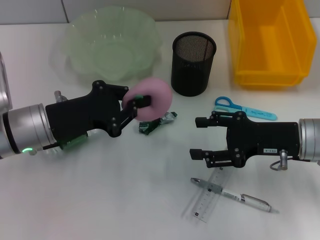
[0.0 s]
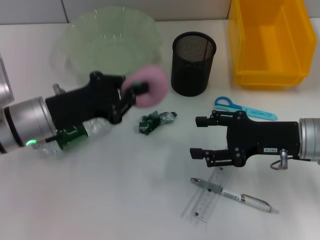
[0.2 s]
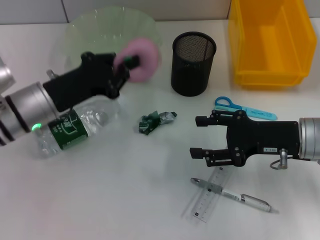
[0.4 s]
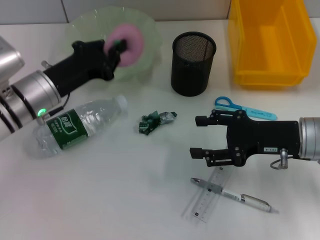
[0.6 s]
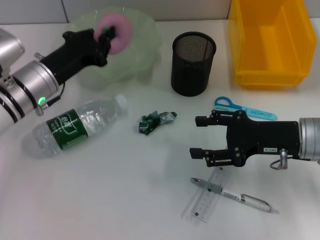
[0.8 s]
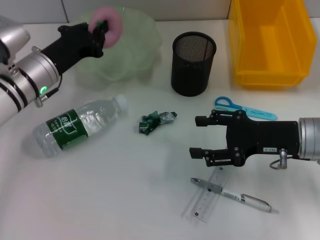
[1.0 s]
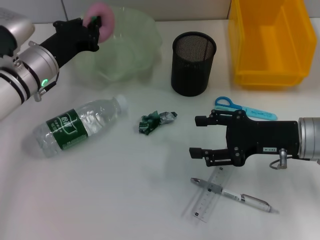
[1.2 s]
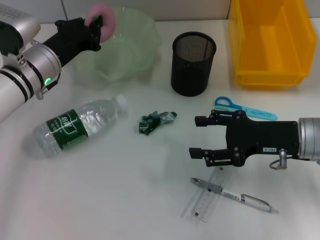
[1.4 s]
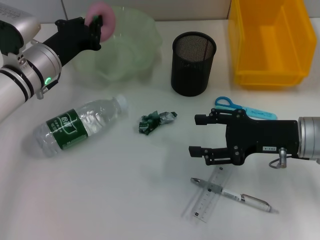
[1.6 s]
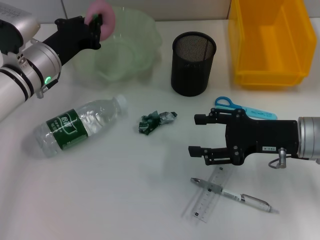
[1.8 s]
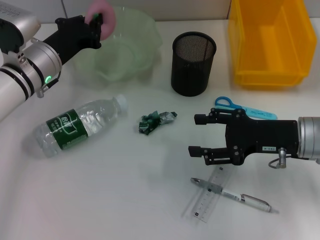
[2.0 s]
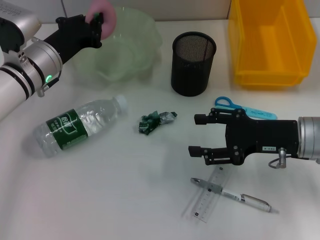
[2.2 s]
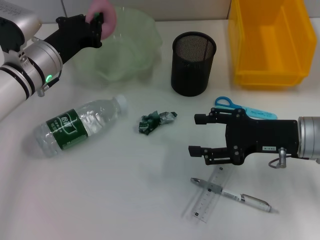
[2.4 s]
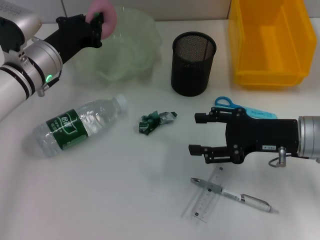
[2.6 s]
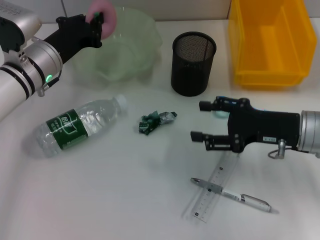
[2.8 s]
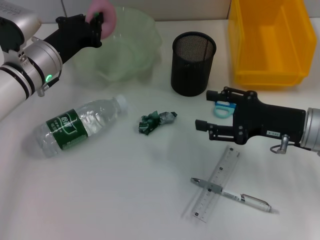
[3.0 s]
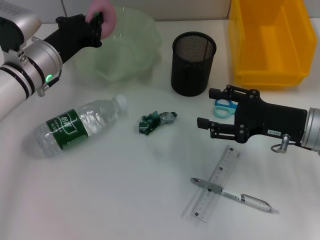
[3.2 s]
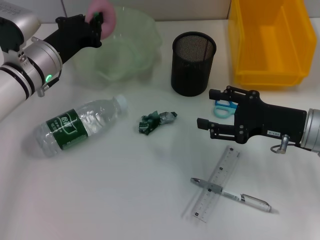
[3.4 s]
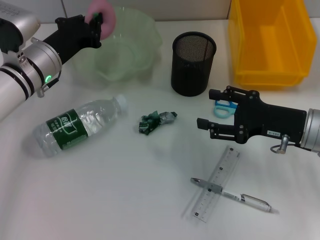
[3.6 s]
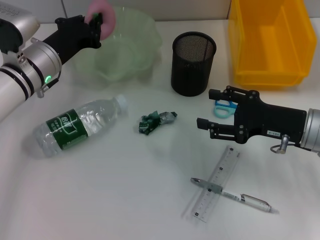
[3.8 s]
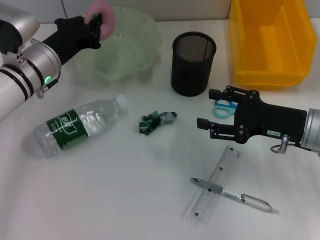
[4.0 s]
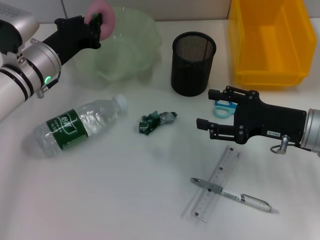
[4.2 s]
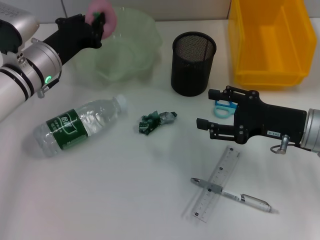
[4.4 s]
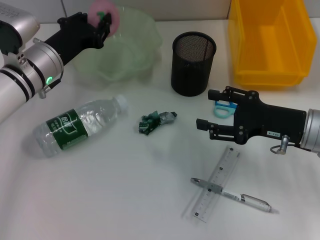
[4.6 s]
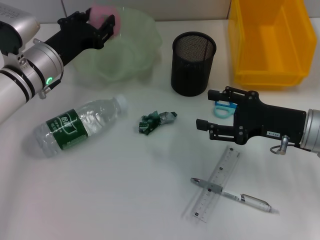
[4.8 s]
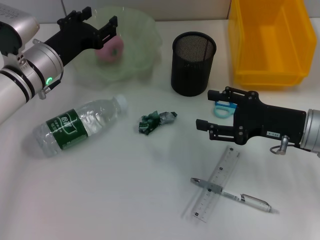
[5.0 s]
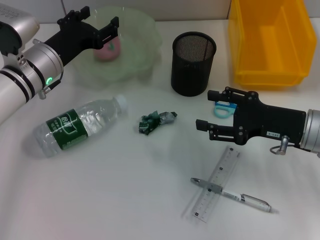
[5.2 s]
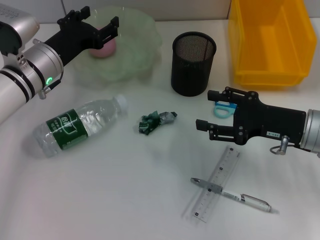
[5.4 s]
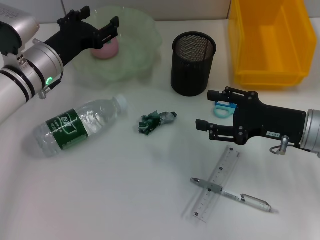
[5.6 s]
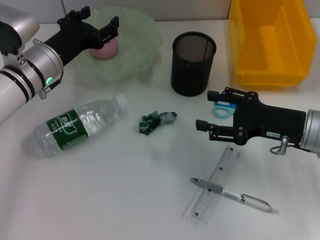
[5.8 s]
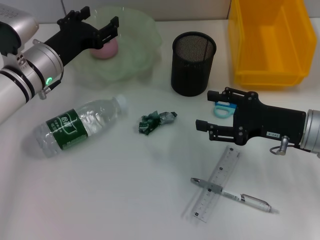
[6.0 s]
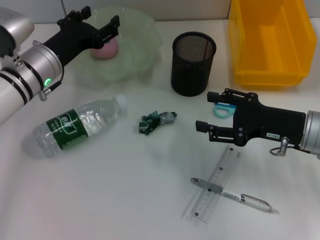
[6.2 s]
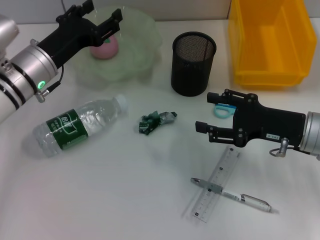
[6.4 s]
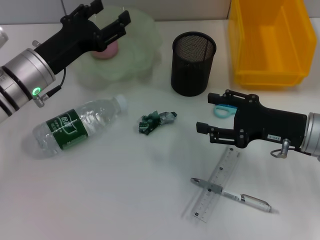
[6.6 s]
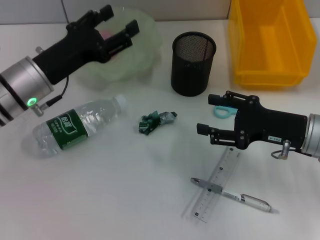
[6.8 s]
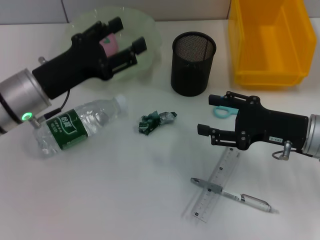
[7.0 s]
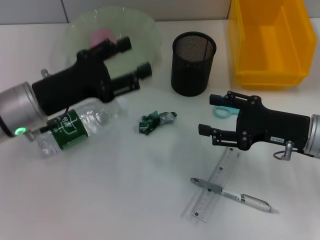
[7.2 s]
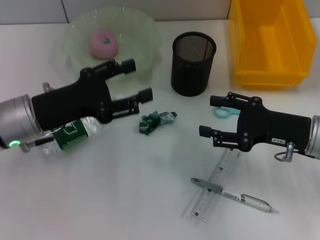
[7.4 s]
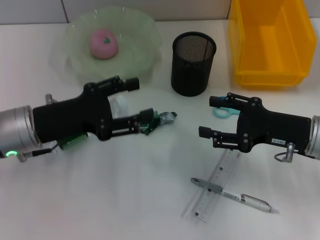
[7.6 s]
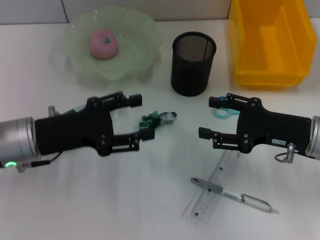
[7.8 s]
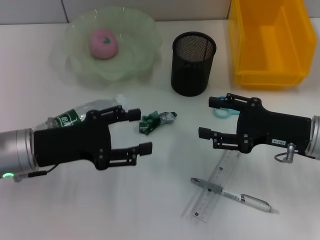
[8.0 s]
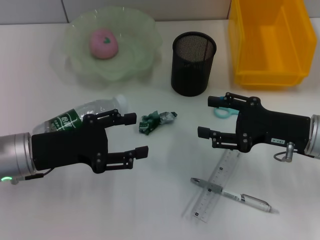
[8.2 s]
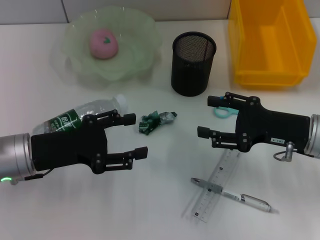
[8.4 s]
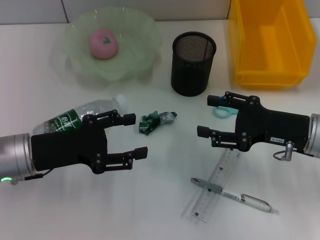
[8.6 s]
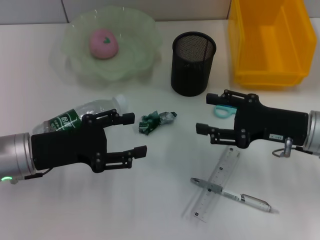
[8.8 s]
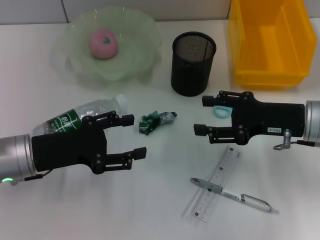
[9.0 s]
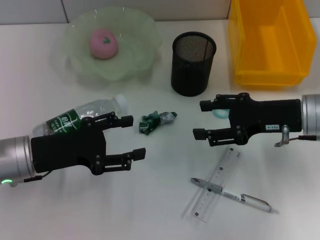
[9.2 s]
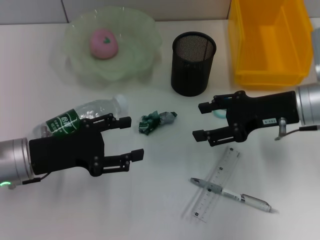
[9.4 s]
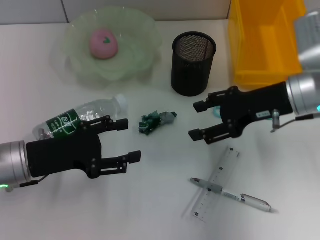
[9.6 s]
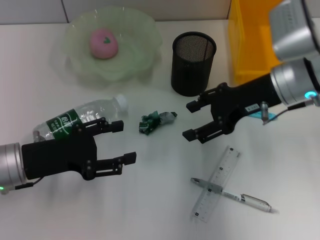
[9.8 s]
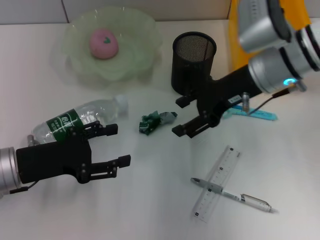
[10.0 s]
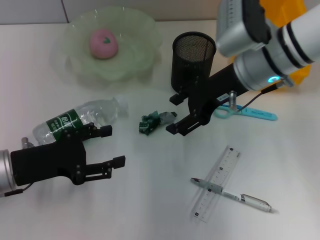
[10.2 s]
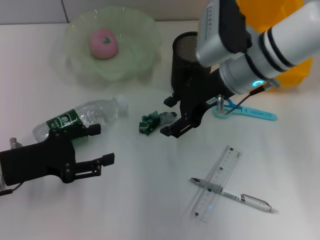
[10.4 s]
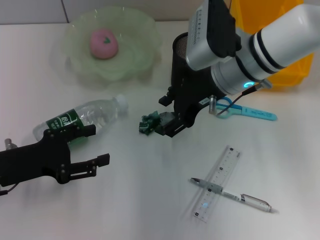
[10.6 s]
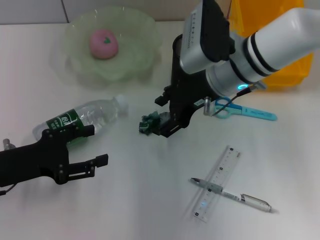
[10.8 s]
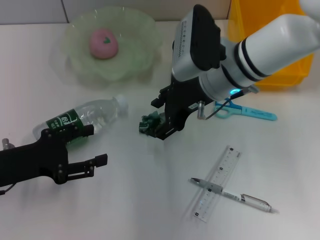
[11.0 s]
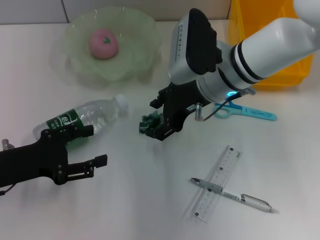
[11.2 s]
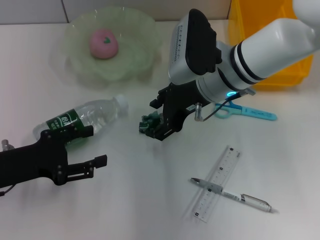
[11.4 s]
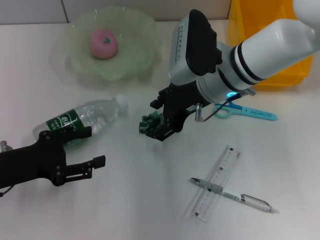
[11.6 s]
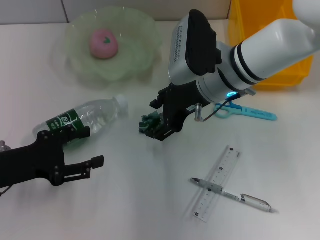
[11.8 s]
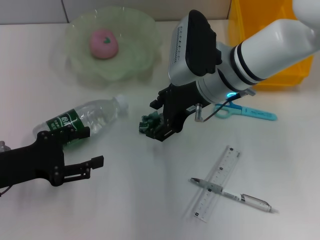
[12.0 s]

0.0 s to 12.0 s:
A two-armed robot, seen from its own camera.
Step, 0.0 to 5.2 s: Place the peach into the fruit bowl with the left hand.
0.0 to 1.6 s: The left gripper heads forward, covering some 10 cm.
1.6 to 3.0 s: The grippers stay close to where they were, moving slightly.
3.0 to 4.4 s: Both grippers stay put.
4.4 to 6.0 s: The left gripper opens up.
6.0 to 7.6 s: The left gripper travels backward by roughly 10 cm.
7.6 to 9.0 s: There are only small adjustments of the grippers.
9.0 to 10.4 s: The right gripper moves to the left, forward and upward, approximately 15 cm.
10.4 to 12.0 s: The grippers stay close to where they were, moving slightly.

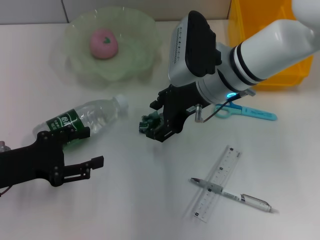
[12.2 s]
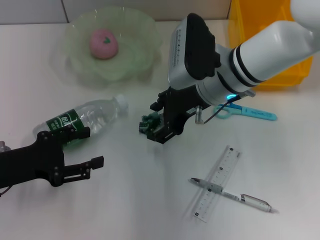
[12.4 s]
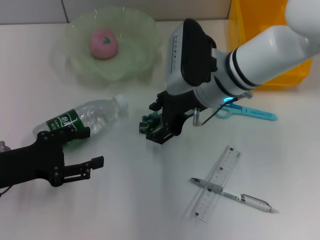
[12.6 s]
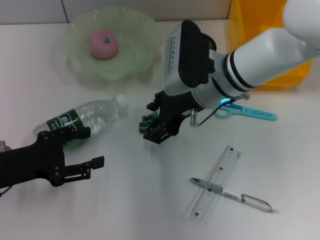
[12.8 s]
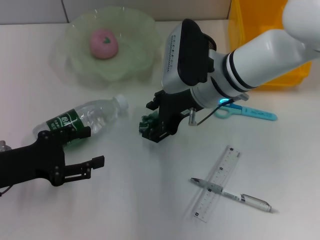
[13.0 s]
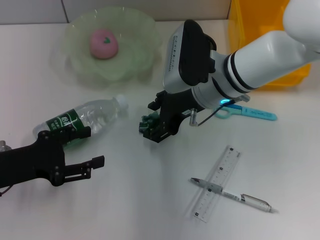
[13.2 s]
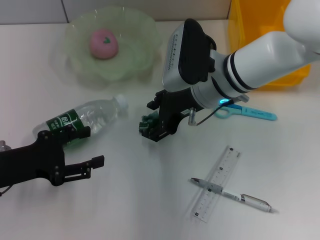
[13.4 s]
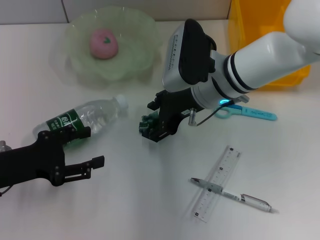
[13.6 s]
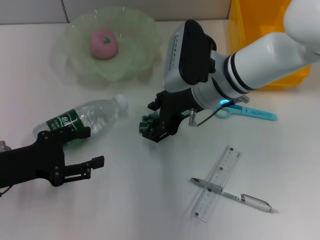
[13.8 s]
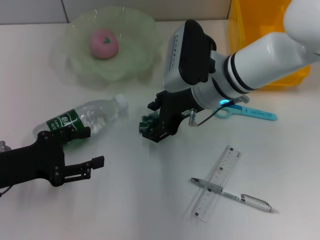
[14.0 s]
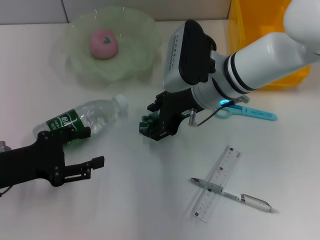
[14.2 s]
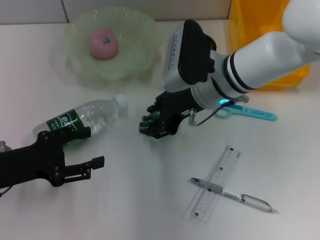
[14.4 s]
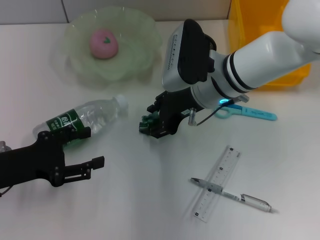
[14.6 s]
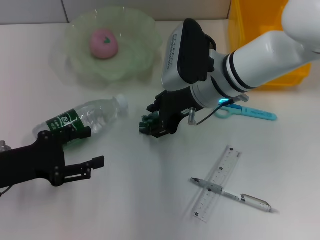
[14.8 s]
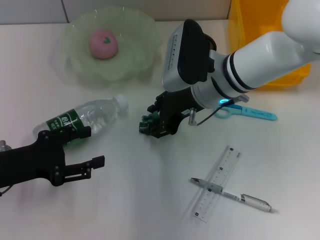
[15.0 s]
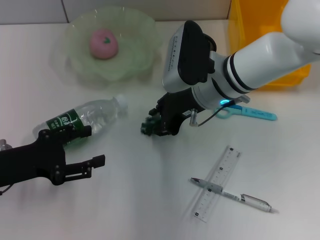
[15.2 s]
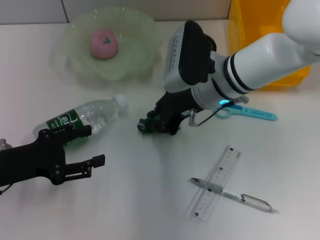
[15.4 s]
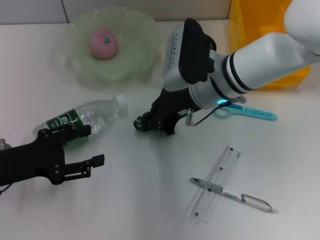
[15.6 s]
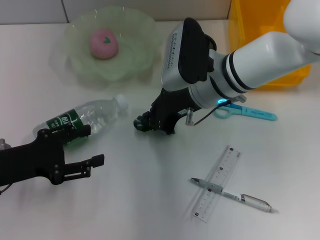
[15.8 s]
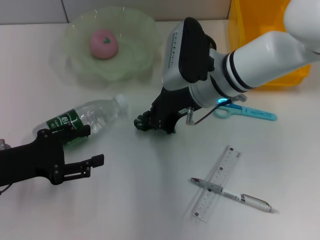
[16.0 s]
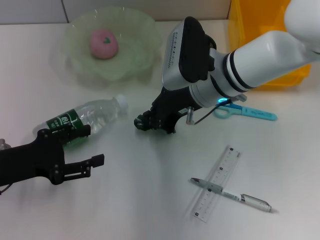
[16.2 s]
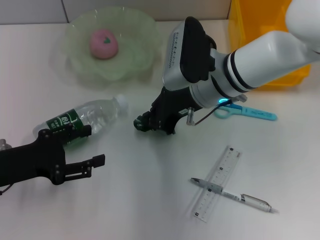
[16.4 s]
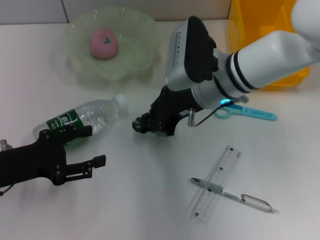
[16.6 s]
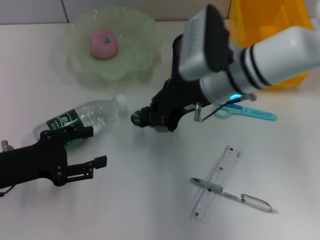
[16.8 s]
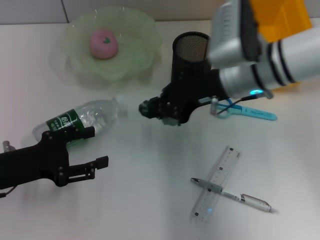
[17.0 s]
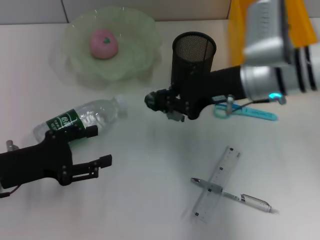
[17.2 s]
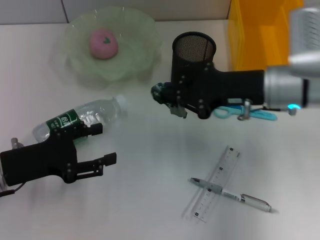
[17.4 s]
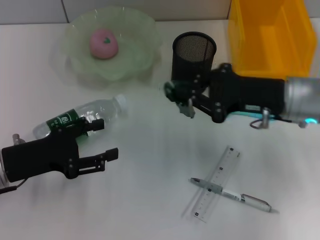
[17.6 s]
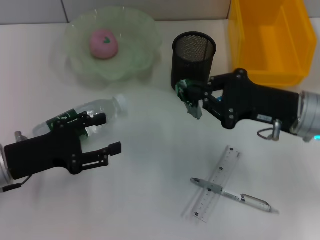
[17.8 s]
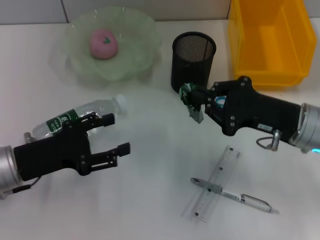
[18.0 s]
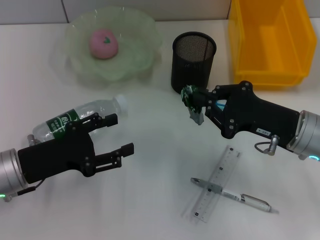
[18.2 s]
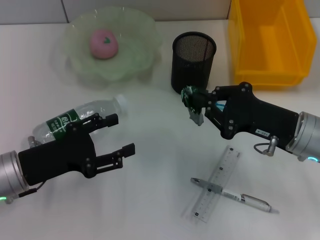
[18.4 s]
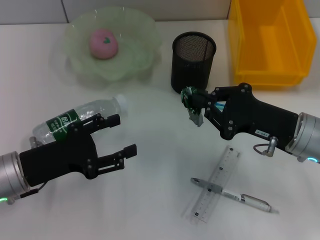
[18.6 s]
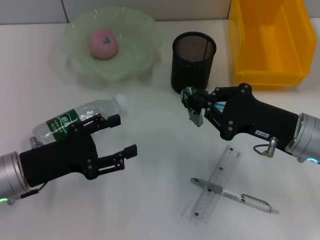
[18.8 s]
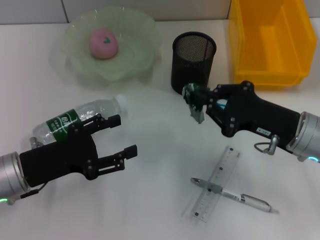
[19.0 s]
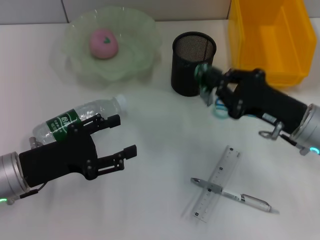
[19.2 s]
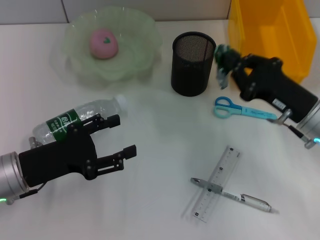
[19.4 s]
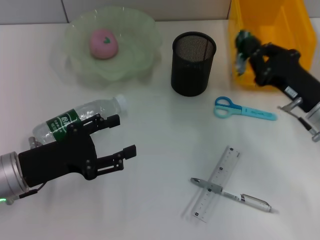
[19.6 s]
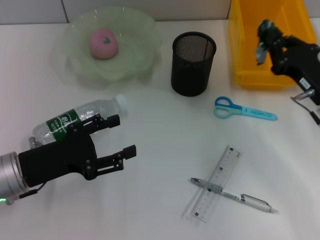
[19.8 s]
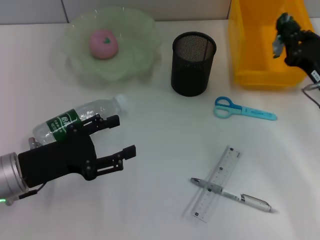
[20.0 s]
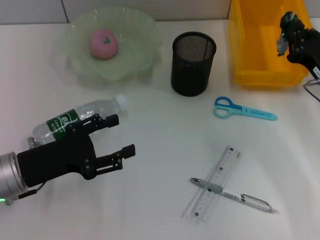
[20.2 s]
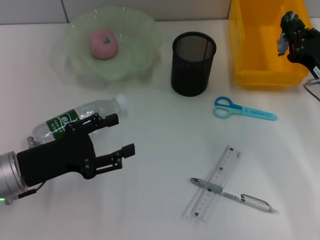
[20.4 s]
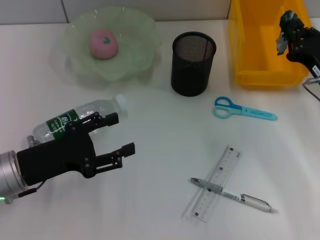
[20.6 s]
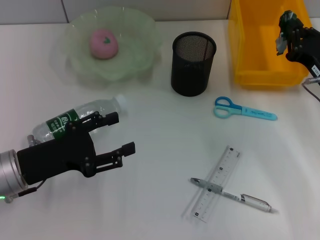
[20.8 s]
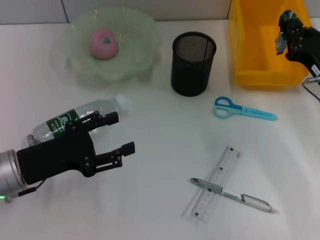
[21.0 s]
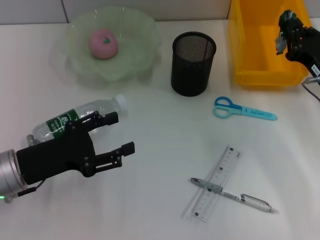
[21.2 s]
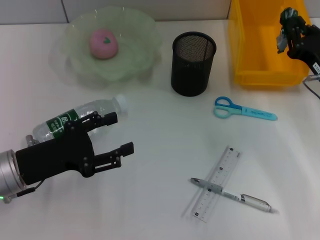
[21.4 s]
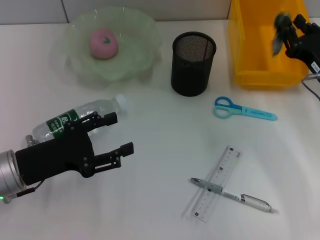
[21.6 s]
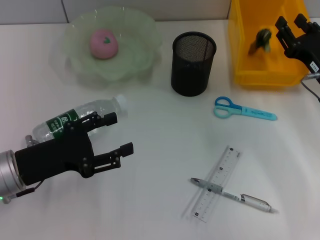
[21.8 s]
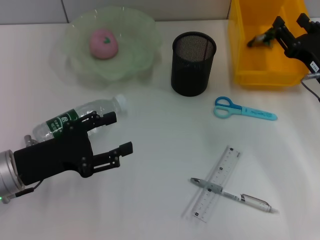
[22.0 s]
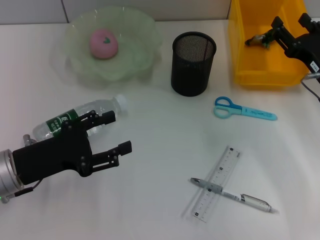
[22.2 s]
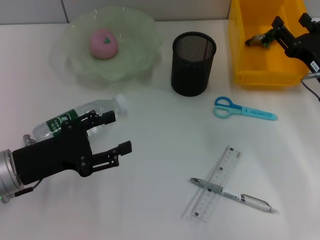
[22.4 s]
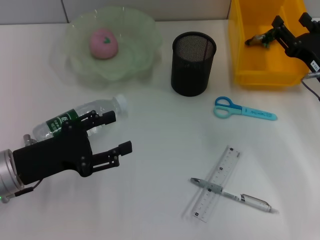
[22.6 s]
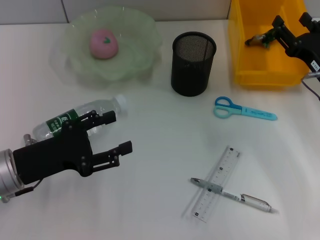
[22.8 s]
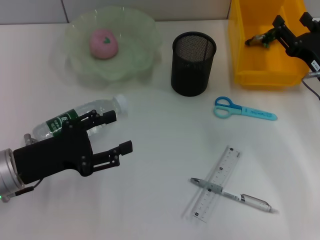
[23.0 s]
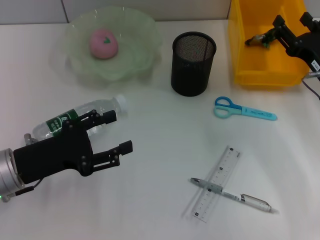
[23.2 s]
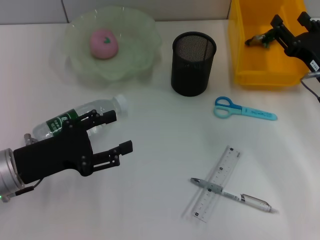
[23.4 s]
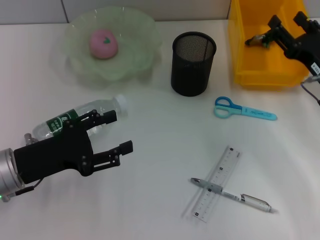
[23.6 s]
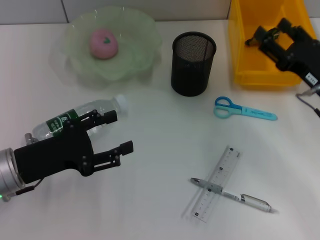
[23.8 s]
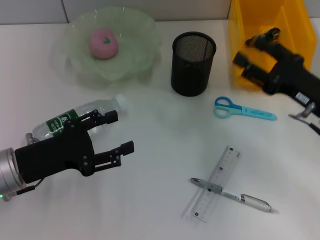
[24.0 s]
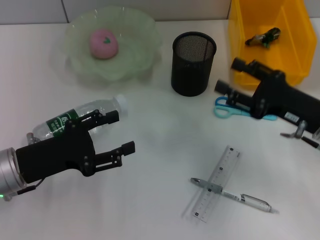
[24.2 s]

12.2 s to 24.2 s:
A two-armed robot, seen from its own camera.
Step, 12.2 to 16.2 s: Grab the plastic with the right hand.
Step, 16.6 to 21.8 s: Place the plastic into the trash can with the right hand.
12.2 to 13.8 s: The grippers stay close to where they were, moving slightly.
13.8 to 15.2 s: Both grippers stay about where they are.
15.2 to 16.6 s: The right gripper closes.
16.6 to 18.2 s: The right gripper moves to the right and backward, roughly 15 cm.
19.8 to 21.2 s: The grippers make only small movements.
21.2 to 22.6 s: The right gripper opens its fingers.
22.6 to 24.2 s: The right gripper changes place by roughly 5 cm.
